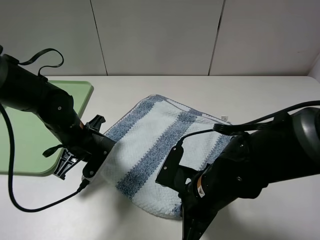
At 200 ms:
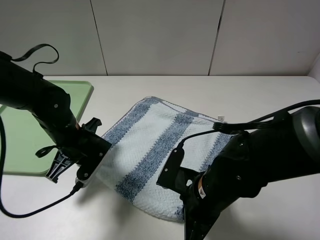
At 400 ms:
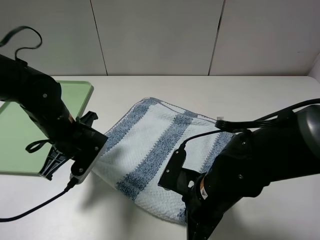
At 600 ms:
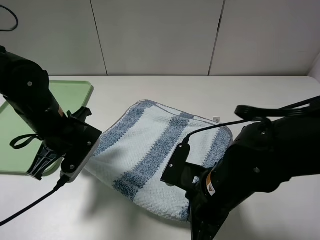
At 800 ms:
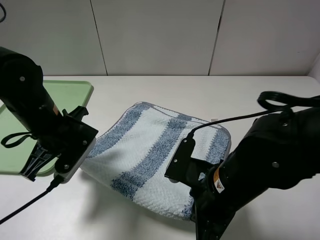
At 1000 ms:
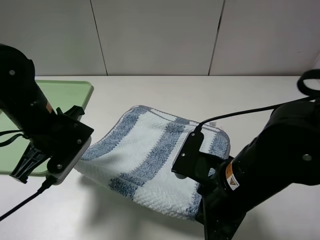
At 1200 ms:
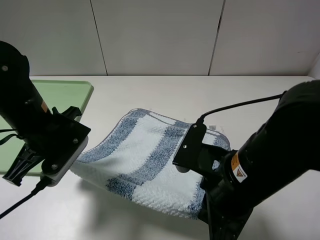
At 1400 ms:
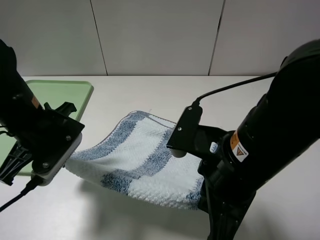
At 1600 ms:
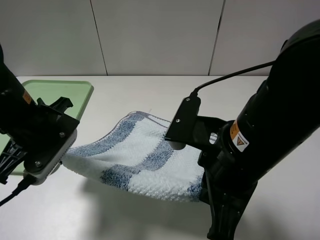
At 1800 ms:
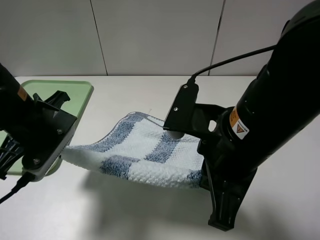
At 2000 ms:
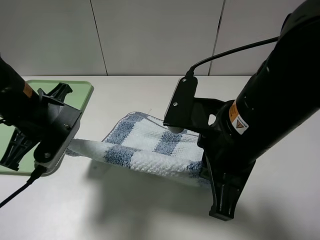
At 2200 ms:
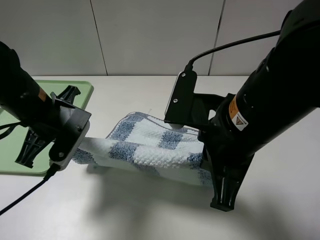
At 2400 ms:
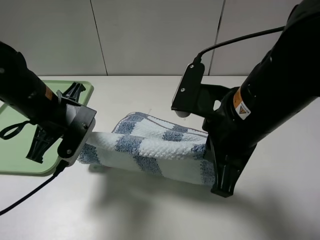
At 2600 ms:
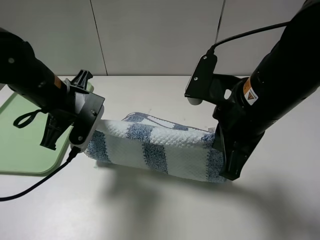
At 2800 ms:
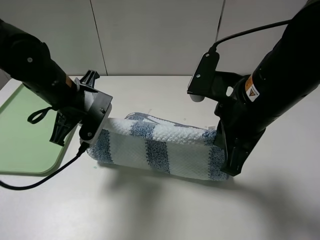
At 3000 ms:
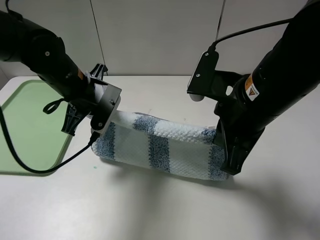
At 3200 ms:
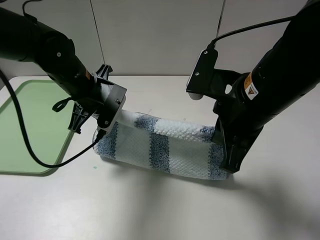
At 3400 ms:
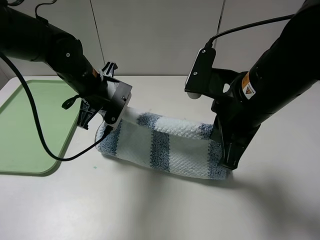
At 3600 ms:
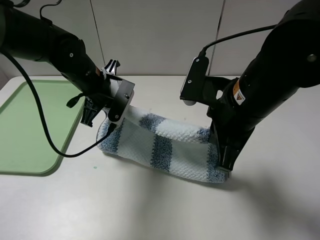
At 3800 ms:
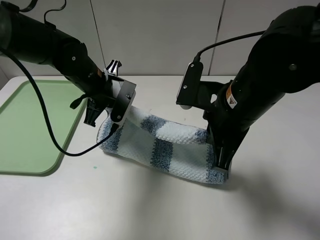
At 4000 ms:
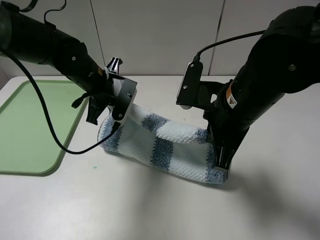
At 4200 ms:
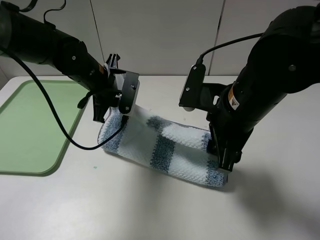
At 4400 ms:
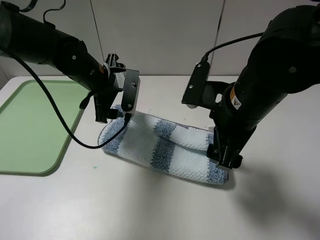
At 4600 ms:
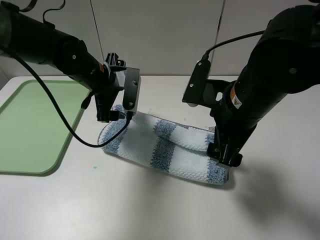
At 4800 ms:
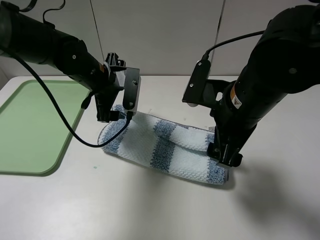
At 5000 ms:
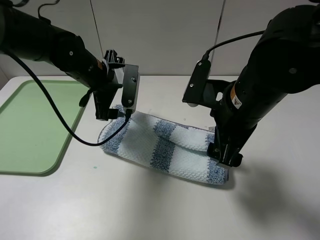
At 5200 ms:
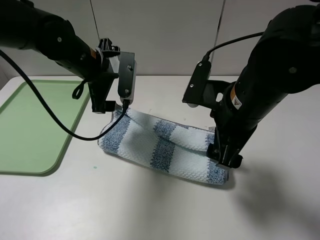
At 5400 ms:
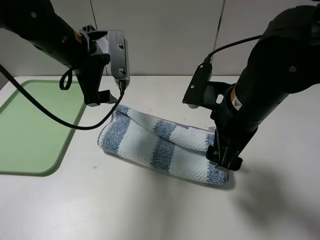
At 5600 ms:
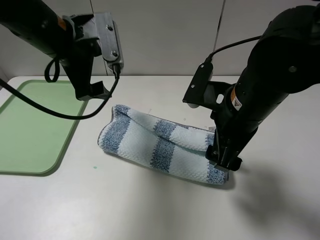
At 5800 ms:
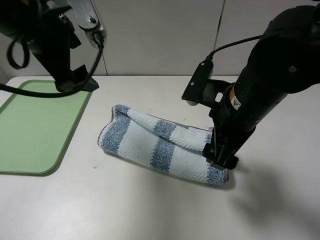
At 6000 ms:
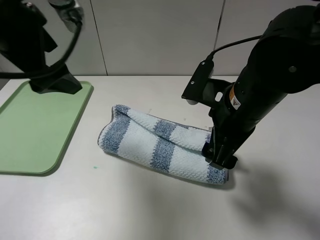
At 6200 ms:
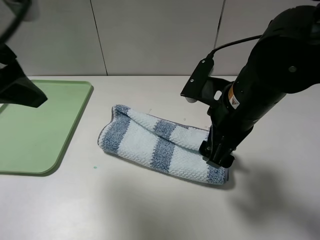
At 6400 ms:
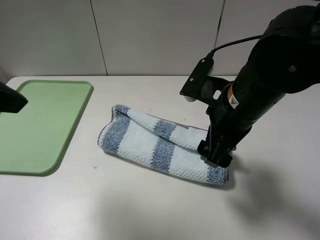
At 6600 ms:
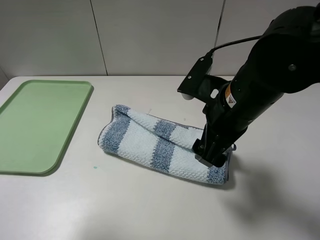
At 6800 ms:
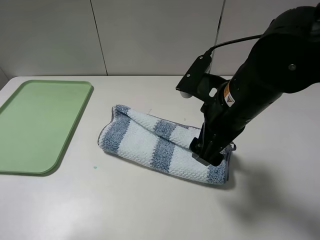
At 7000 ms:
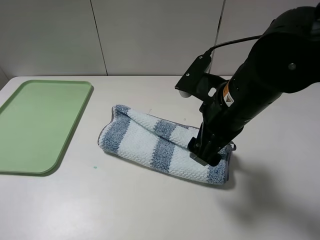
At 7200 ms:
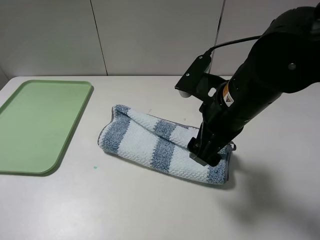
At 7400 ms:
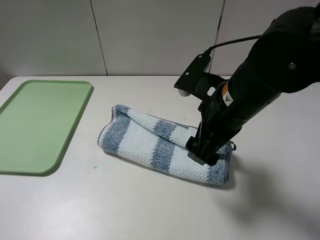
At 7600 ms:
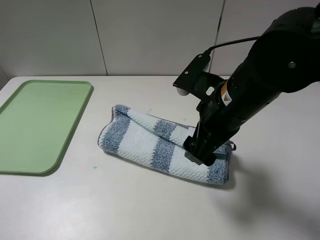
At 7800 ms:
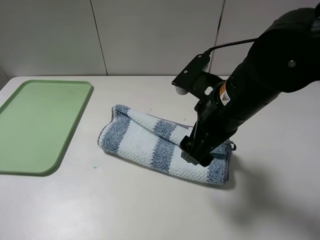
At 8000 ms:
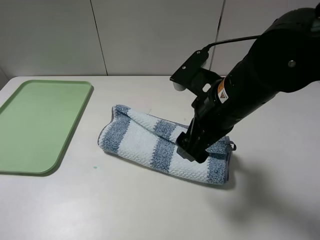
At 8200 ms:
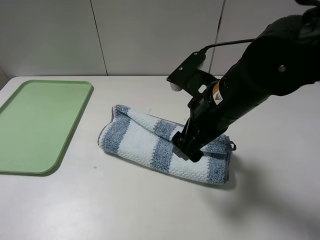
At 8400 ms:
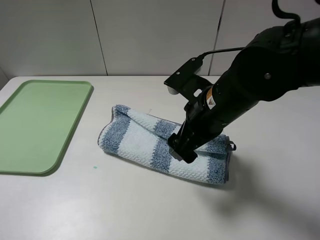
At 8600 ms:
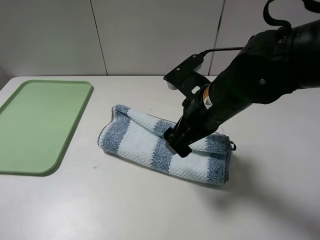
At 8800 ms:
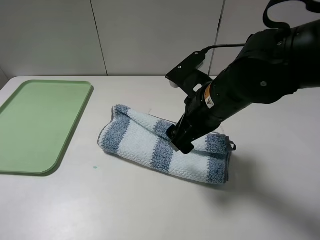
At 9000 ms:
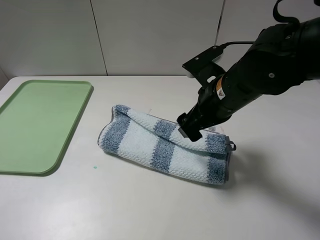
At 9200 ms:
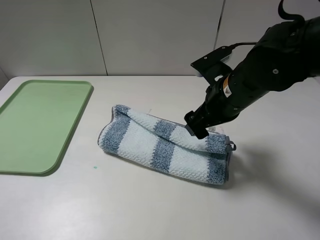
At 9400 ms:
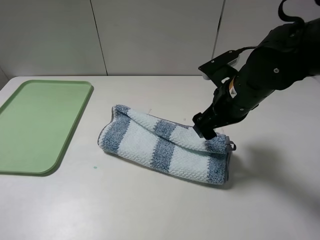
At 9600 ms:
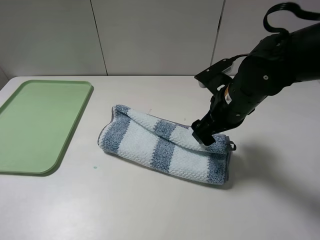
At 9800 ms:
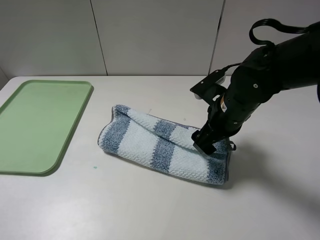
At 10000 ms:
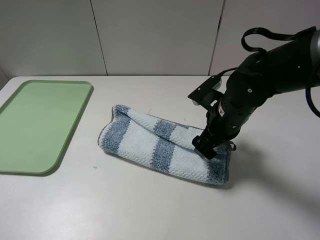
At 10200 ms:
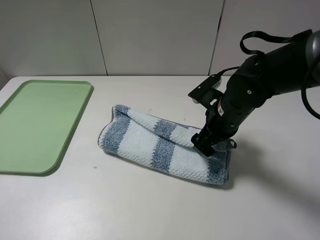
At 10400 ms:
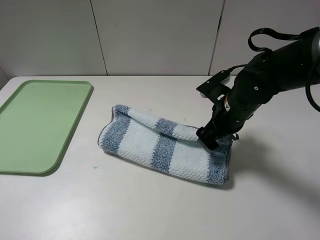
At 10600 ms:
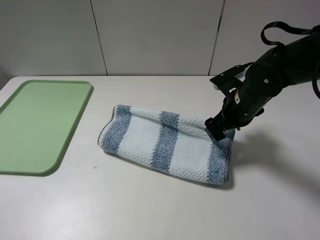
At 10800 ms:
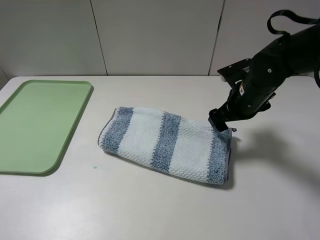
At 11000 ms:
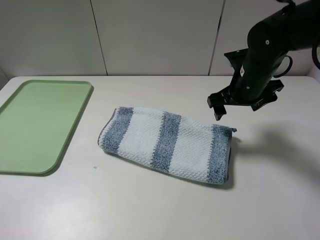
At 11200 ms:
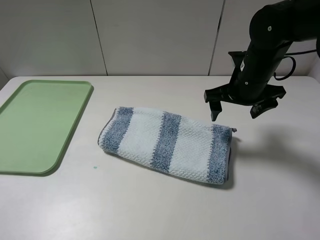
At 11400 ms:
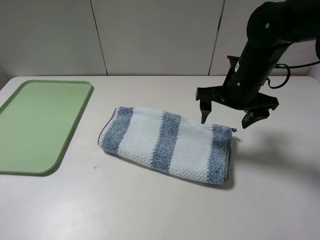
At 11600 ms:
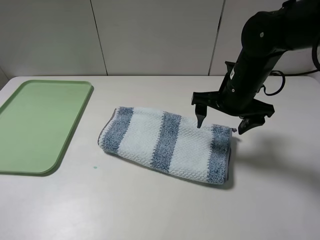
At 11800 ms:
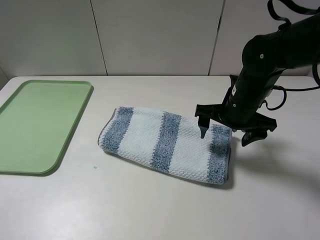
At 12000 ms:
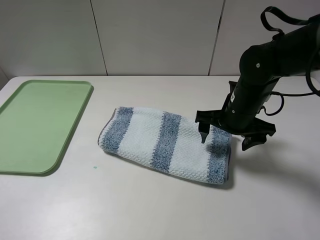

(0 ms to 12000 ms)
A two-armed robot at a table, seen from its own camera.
Step, 400 ms - 6000 ms: Fold the blue white towel upwards with the left gripper.
0 ms - 1600 ms: The left gripper moves upward and backward, about 15 cm; the right gripper goes some 15 cm upward.
1600 ms - 3000 ms: The left gripper heads forward, covering roughly 10 cm, while the right gripper travels forward by approximately 5 cm.
3000 ms - 4400 ms: The right gripper opens its fingers. Meanwhile the left gripper opens its fingers.
4400 ms - 6000 ms: The left gripper goes approximately 20 cm upward, backward and to the left.
6000 ms - 7600 ms: The left gripper is displaced backward and to the left by approximately 25 cm.
9000 ms - 10400 ms: The right gripper is displaced downward by about 5 cm.

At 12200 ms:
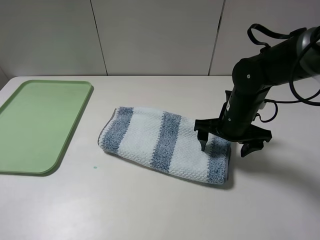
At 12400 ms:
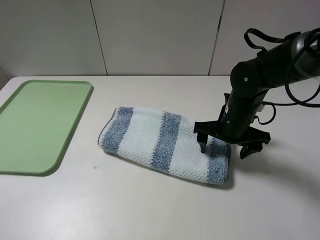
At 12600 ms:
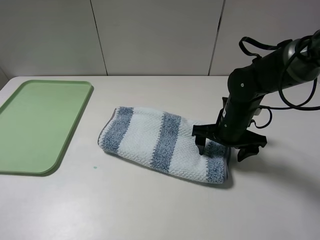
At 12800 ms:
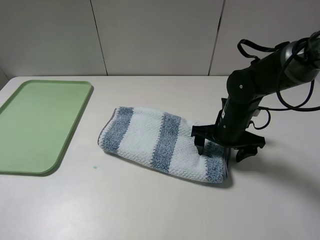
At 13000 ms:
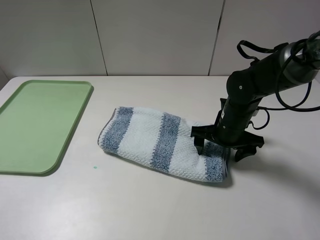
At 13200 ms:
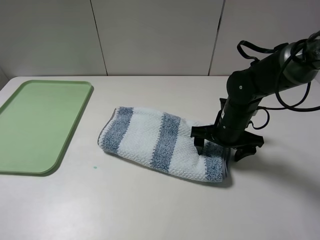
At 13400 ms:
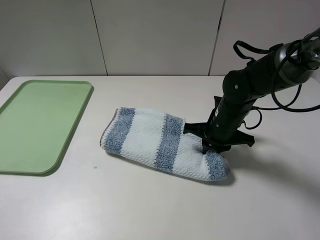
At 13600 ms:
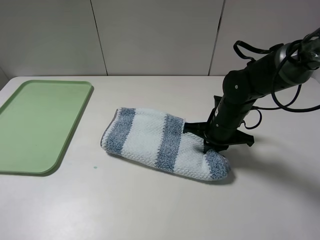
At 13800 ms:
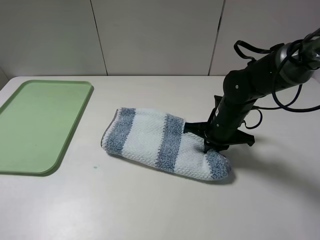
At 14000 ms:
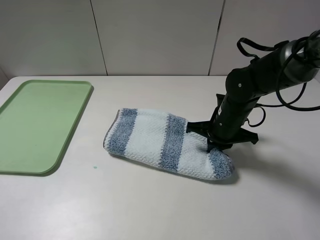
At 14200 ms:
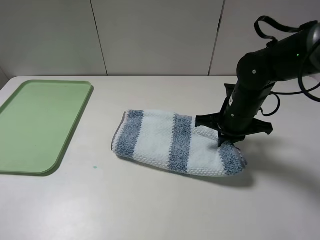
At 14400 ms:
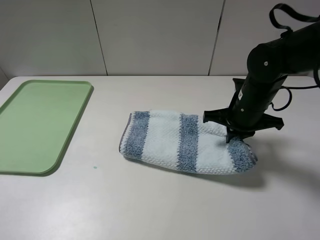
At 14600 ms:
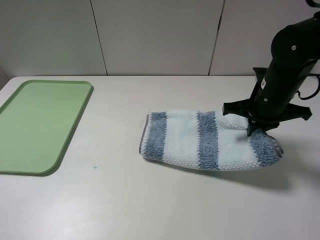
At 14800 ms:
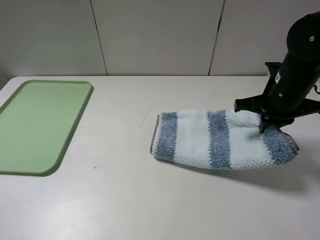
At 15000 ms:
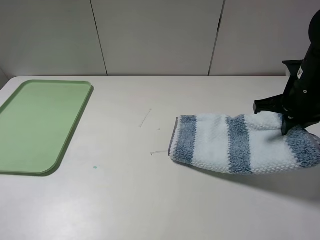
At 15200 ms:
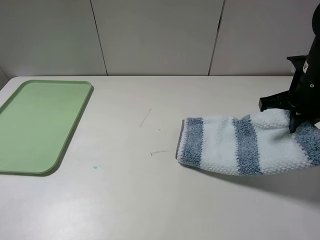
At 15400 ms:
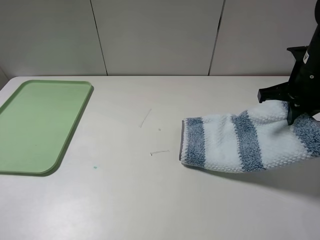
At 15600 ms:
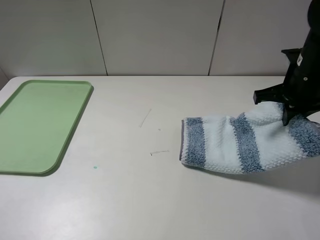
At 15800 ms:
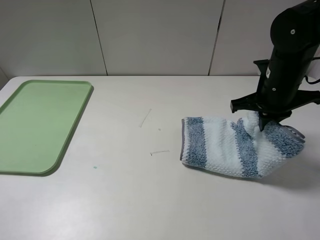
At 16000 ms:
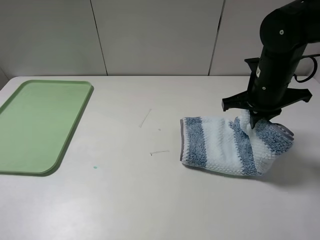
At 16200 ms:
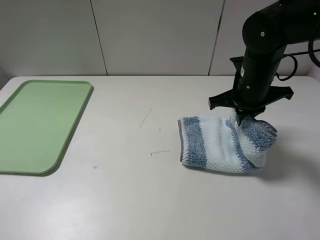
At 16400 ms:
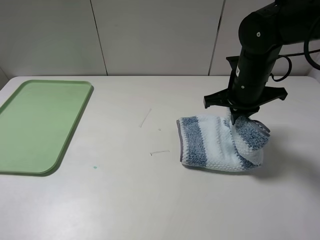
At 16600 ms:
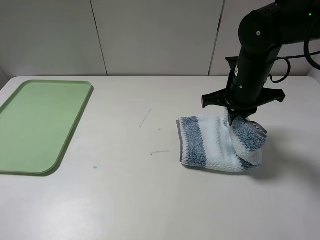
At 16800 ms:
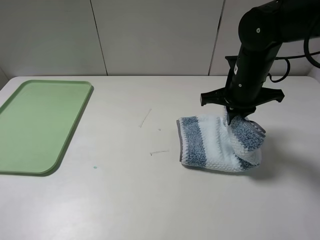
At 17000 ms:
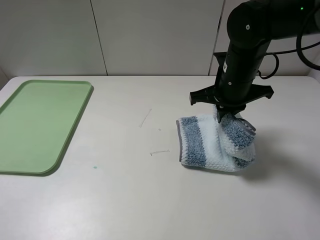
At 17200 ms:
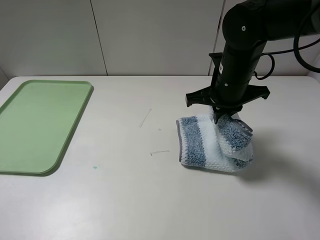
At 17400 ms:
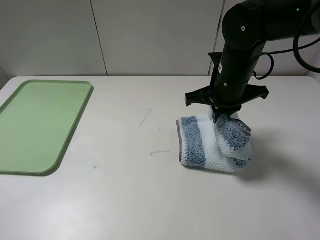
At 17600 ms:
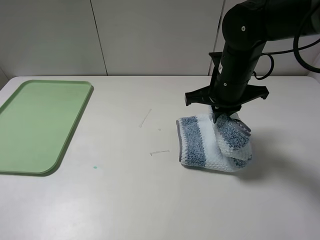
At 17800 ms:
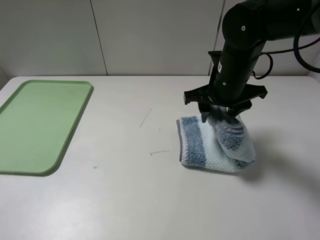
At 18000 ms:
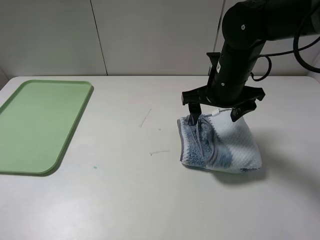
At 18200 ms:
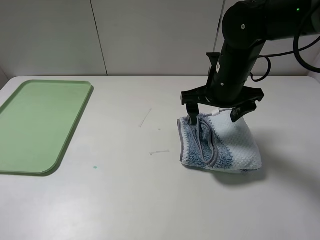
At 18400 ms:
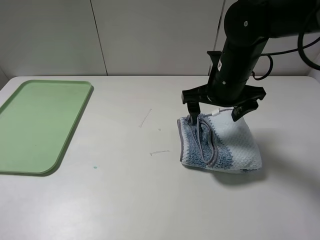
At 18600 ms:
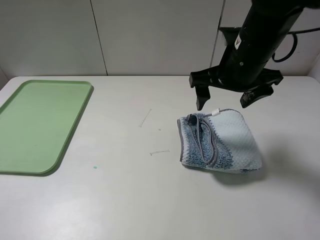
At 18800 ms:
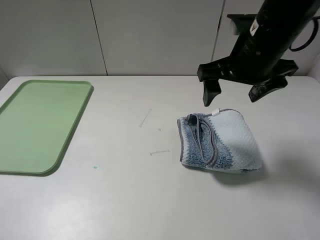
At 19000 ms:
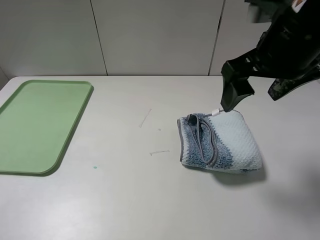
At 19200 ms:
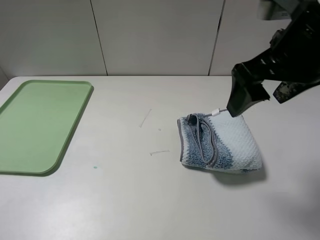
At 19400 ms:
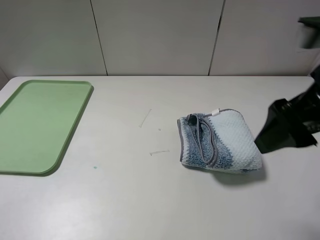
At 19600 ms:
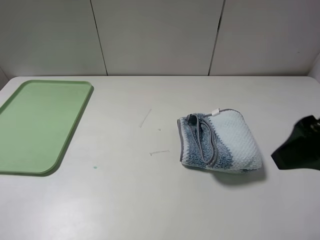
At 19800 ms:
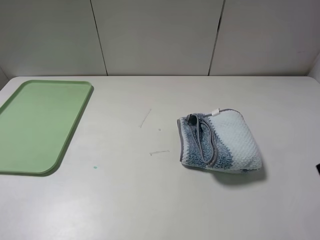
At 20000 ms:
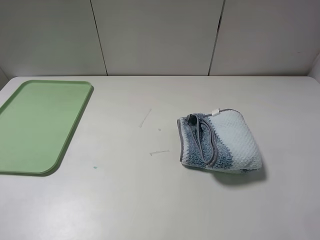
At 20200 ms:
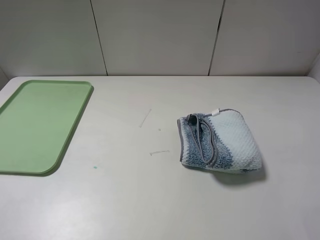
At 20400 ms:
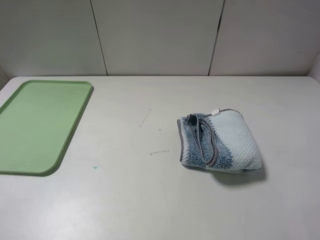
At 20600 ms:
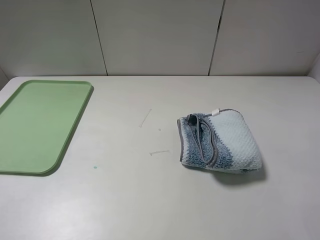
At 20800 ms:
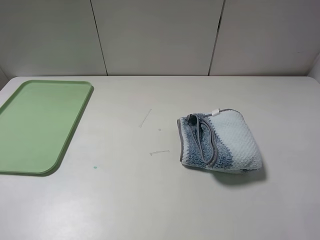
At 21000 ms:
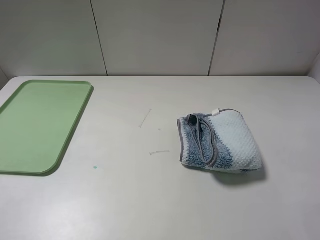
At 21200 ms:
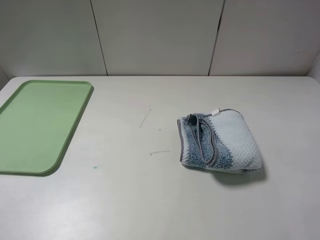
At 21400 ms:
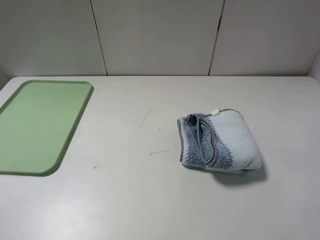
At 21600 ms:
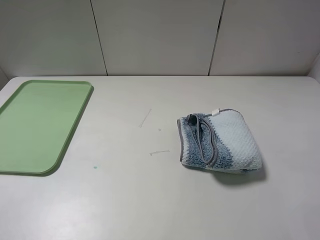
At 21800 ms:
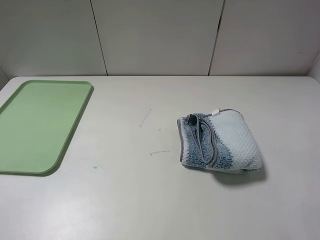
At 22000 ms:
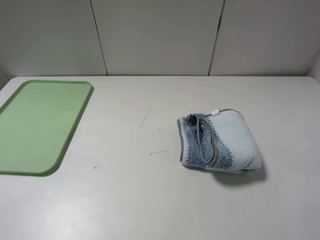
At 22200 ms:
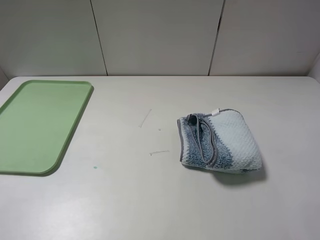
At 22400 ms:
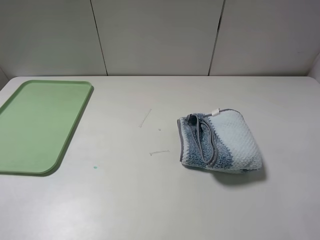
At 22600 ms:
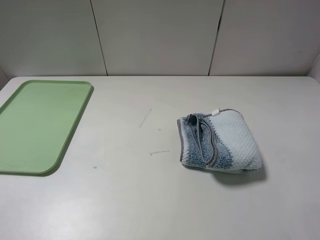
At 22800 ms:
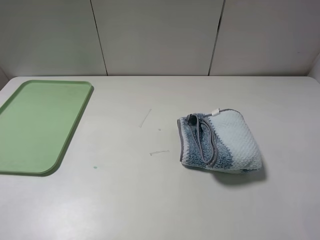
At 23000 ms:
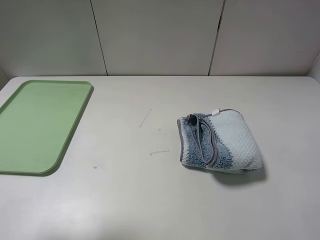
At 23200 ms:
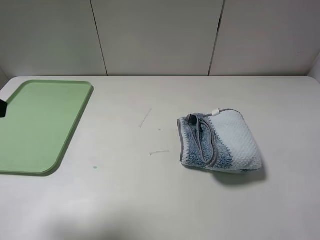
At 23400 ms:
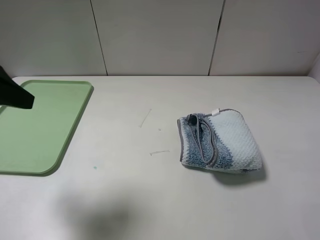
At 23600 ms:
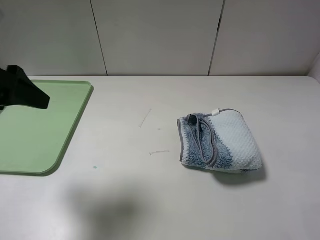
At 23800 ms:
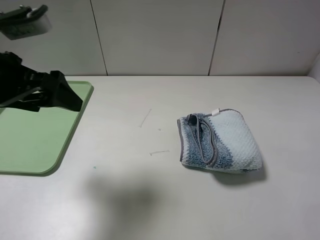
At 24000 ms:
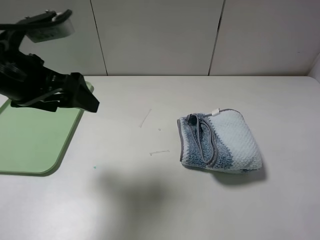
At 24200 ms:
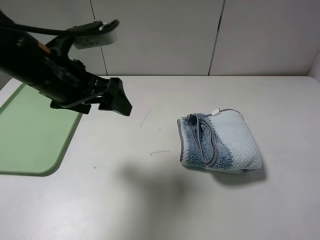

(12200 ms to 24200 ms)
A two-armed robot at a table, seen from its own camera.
Step, 14000 ms - 20000 ms: Fold the blue white towel from right to left with right gripper.
12200 ms - 13800 ms: The right gripper closes.
13800 ms - 15200 ms: The right gripper is displaced upward and to the right by about 15 cm.
15200 ms - 16600 ms: The right gripper is displaced to the left by about 10 cm.
16600 ms - 18200 ms: The right gripper opens its fingers.
18200 ms - 19800 ms: The right gripper heads backward, to the right and upward, covering roughly 30 cm.
22600 ms - 24200 ms: The left gripper travels forward and to the right by roughly 25 cm.
